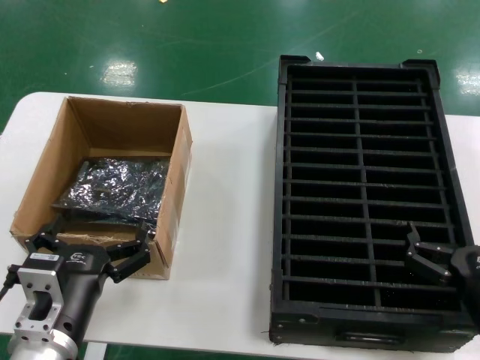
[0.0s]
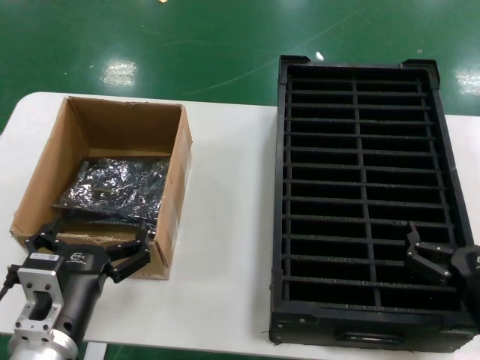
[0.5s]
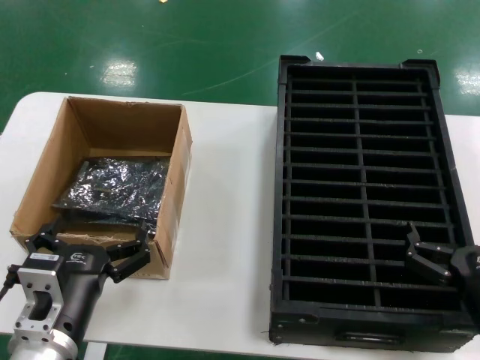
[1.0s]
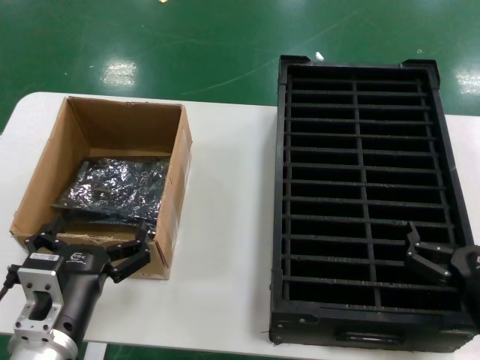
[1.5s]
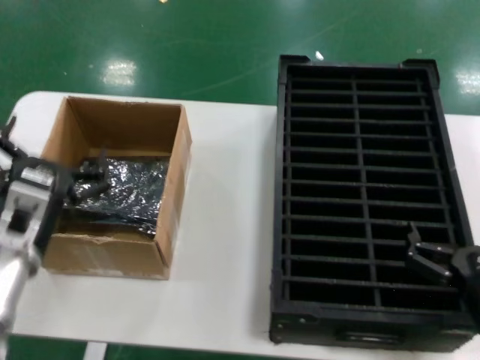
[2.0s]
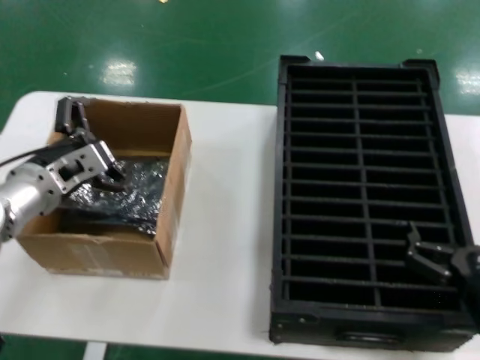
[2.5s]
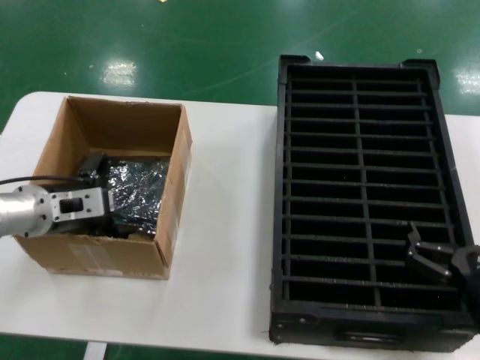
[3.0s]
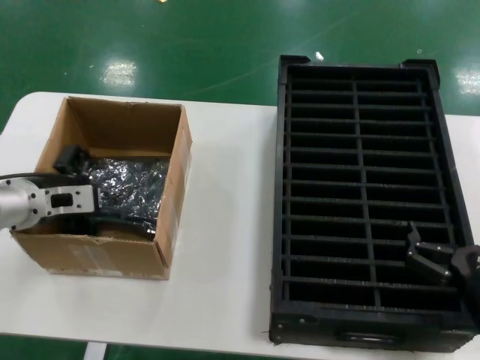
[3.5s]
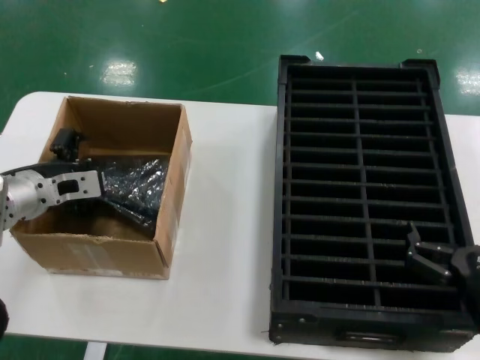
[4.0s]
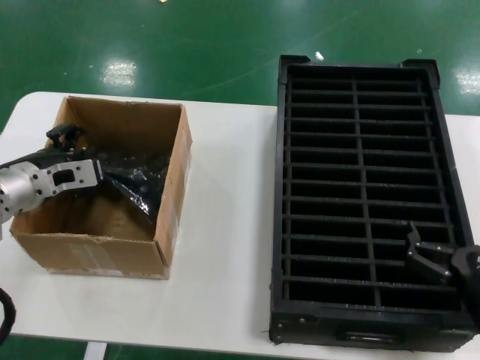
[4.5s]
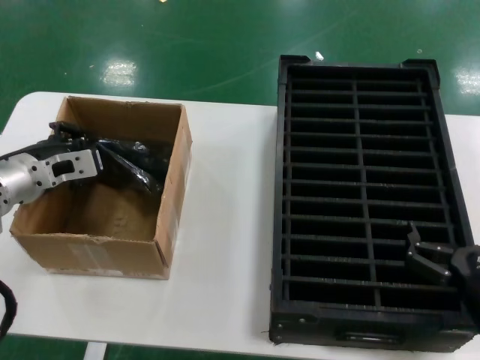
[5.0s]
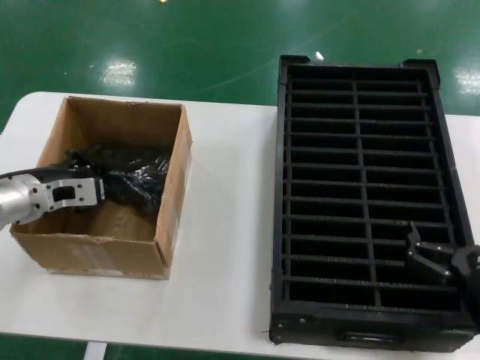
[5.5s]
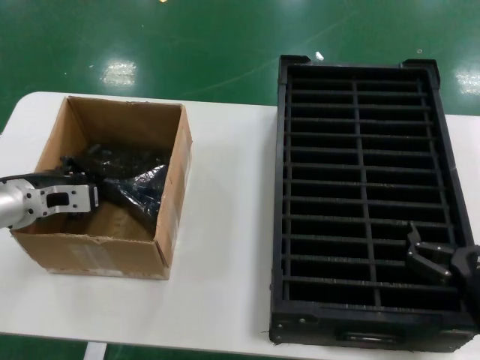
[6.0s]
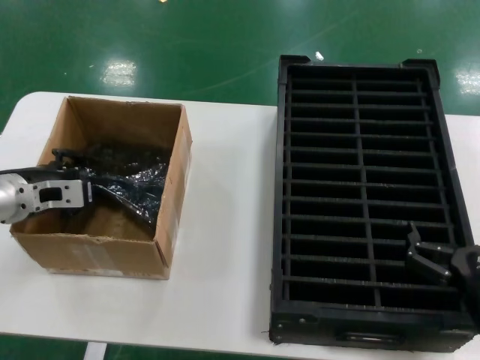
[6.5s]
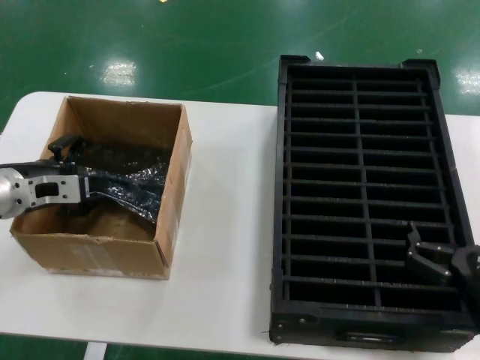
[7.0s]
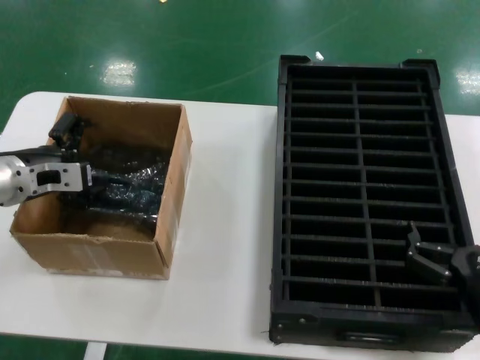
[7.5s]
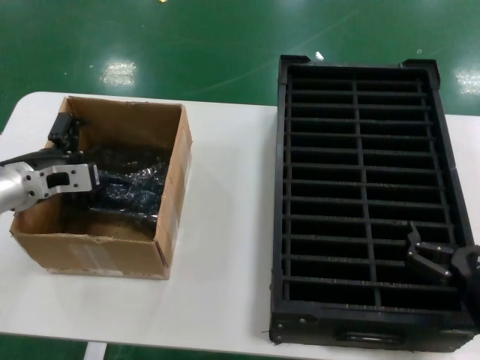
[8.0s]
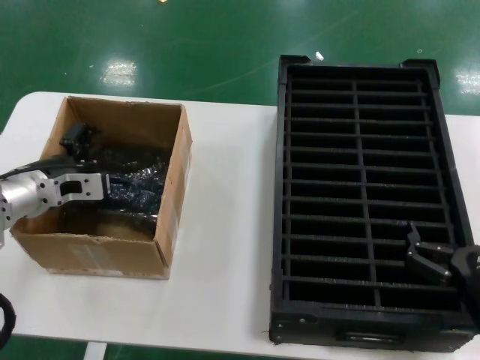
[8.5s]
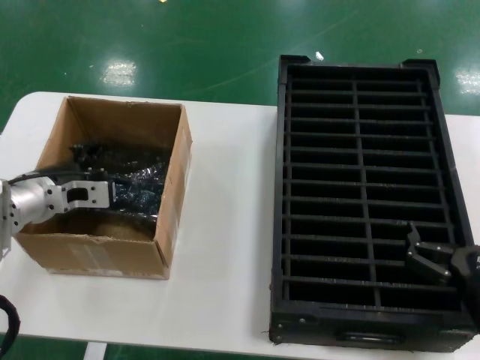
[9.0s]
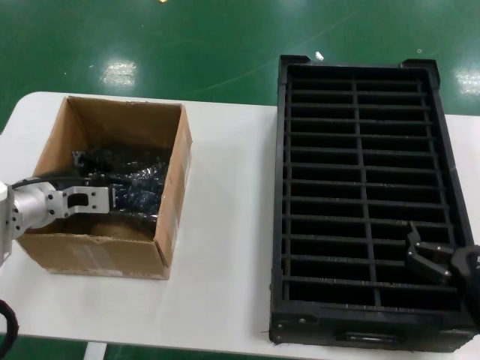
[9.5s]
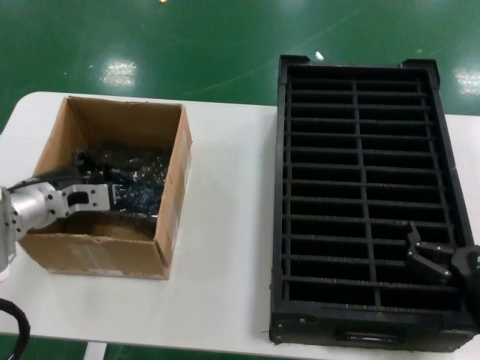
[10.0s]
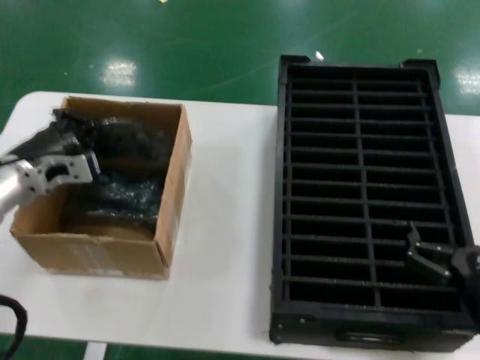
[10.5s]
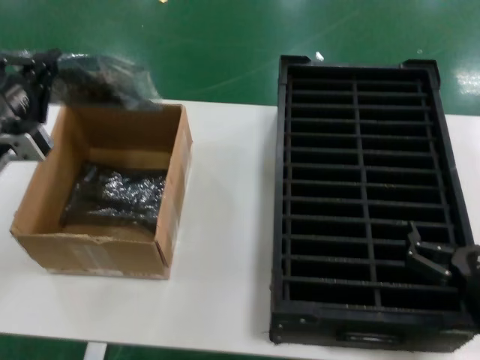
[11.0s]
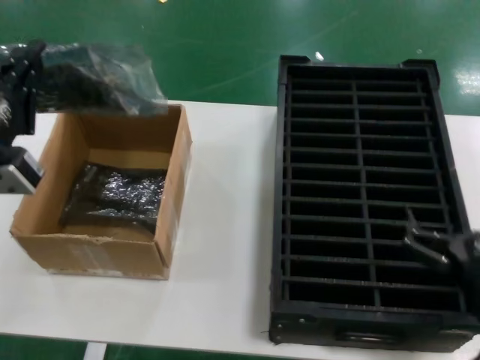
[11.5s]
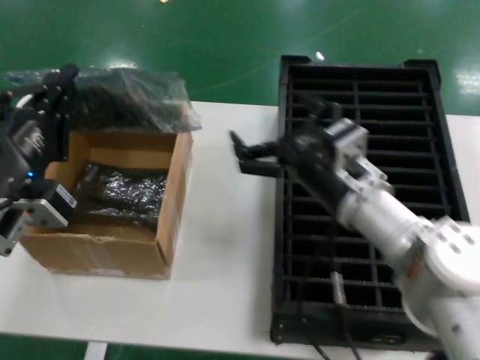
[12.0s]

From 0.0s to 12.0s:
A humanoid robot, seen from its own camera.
Task of the whole recording: take out graphics card from box remove packaging put into black container.
Step, from 0.0s to 10.0s: Grasp the bag.
Step, from 10.5s to 11.5s: Lift the bag.
From 0.0s to 2.0s: The left hand goes some 10 cm upward and forward.
From 2.0s to 4.0s: The left hand shifts roughly 20 cm forward and to the left.
From 4.0s to 10.0s: The hands stay close to where they were, moving slightly.
From 10.0s to 12.0s: The left hand is displaced backward by roughly 20 cm; the right hand moves forward, to the left and upward, about 20 cm.

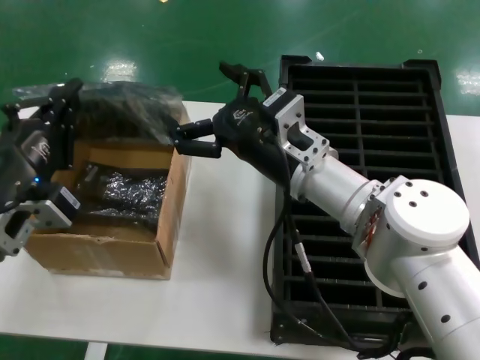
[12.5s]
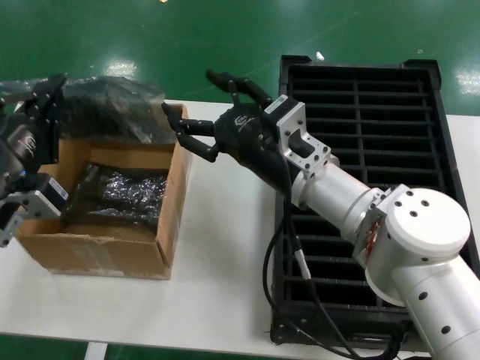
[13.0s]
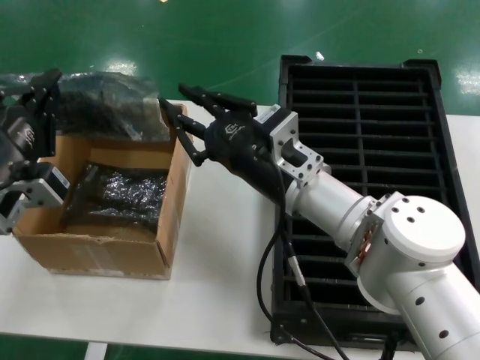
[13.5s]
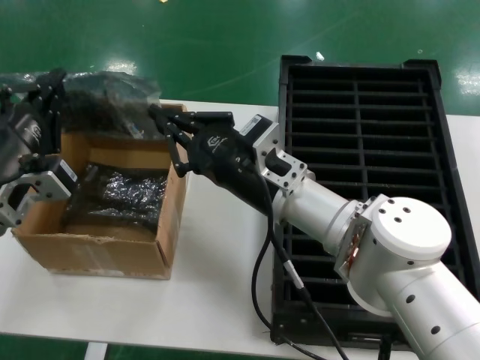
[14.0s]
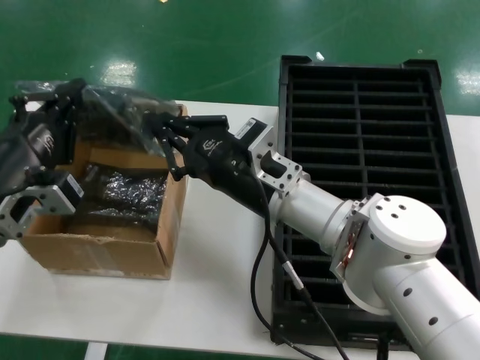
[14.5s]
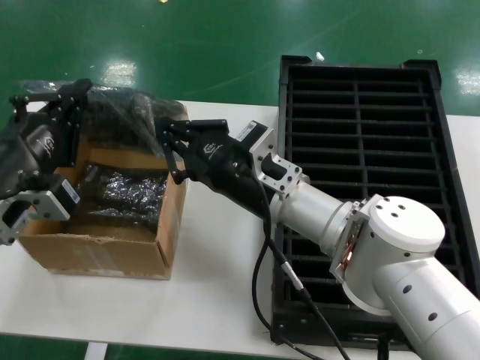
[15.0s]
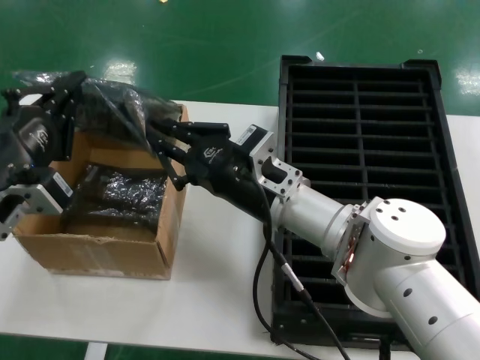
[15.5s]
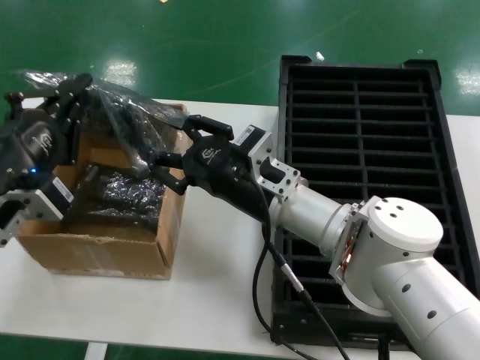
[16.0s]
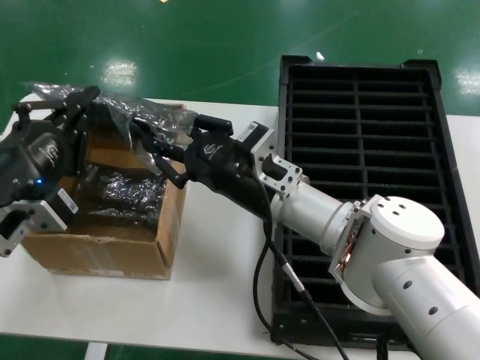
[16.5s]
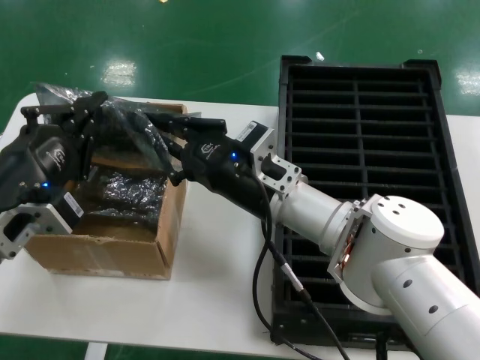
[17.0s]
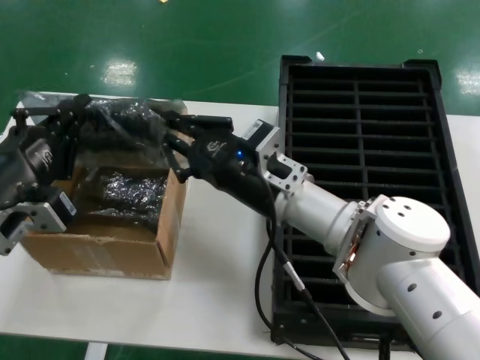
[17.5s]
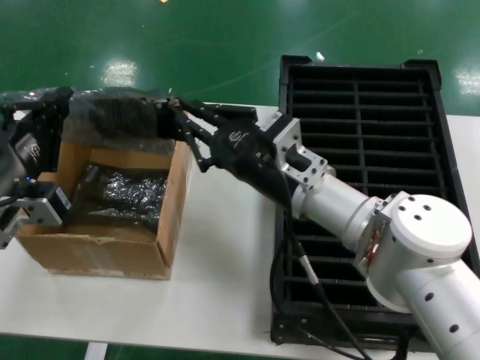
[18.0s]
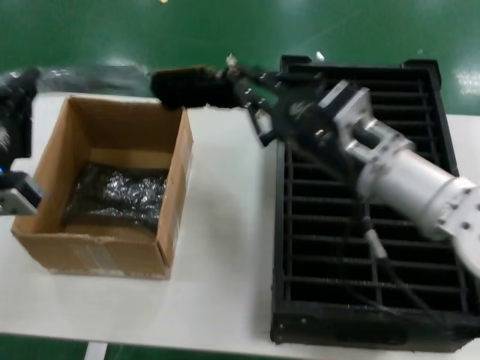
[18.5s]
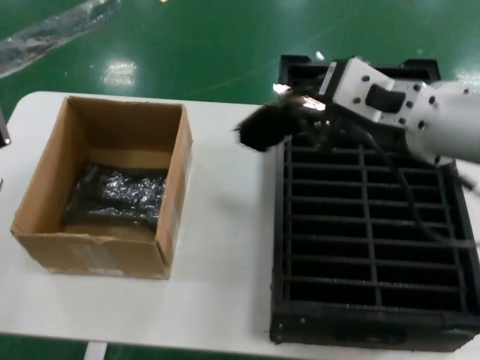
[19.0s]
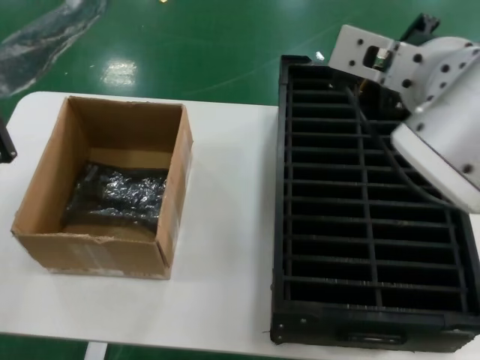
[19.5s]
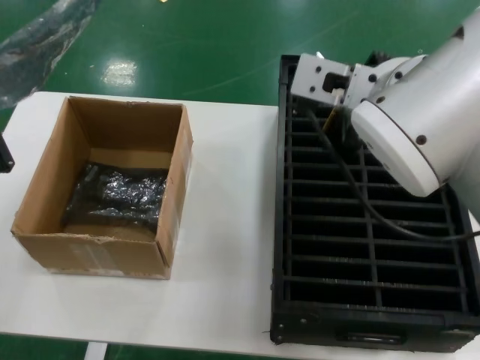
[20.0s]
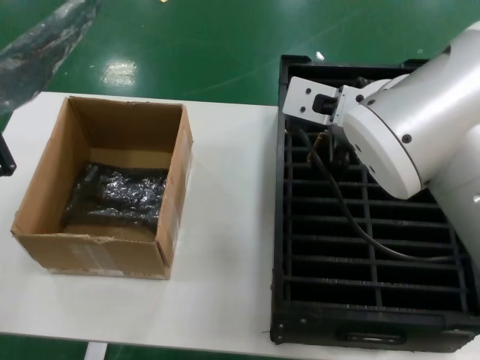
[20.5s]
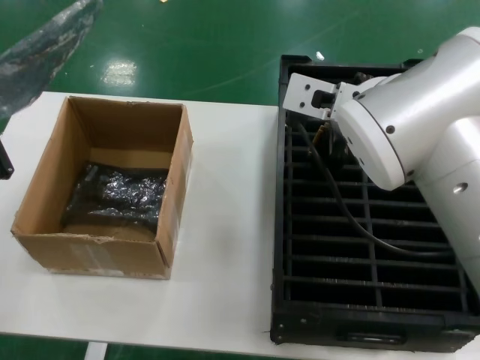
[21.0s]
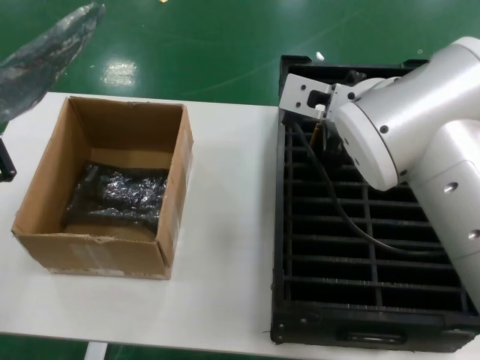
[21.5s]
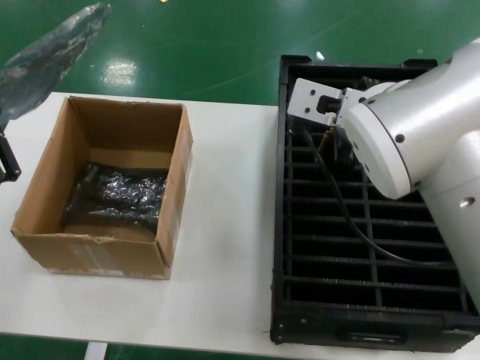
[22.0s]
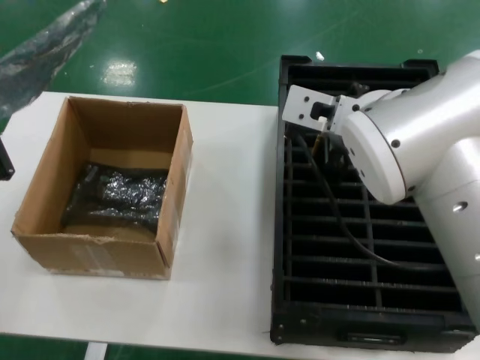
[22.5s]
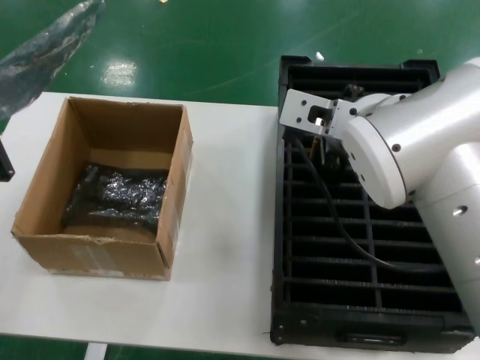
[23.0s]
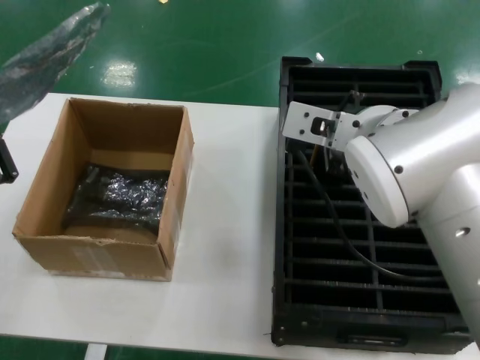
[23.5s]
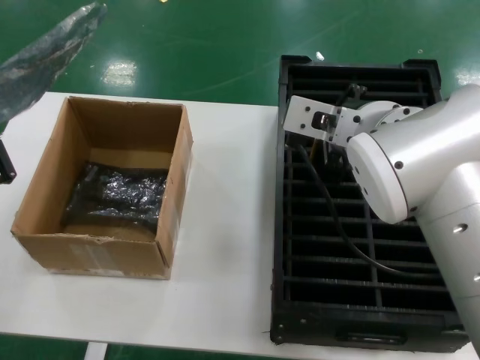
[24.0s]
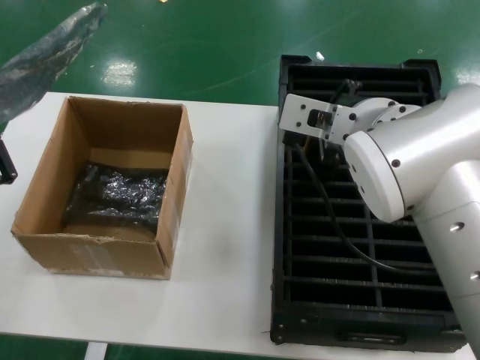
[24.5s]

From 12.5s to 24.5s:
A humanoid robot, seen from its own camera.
Task of the whole recording: take out graphics card from box remove packaging put into black container.
Step, from 12.5s to 18.5s: Take out the hard disk of the bag.
From 14.5s to 16.5s: There are only small adjustments of the hands.
From 16.5s to 18.5s: The right hand goes some 10 cm to the right and upward.
From 18.5s to 20.5s: The right hand moves upward and to the left, some 15 cm; the left hand is displaced downward by about 5 cm.
From 20.5s to 24.5s: The hands stay close to where they were, moving slightly.

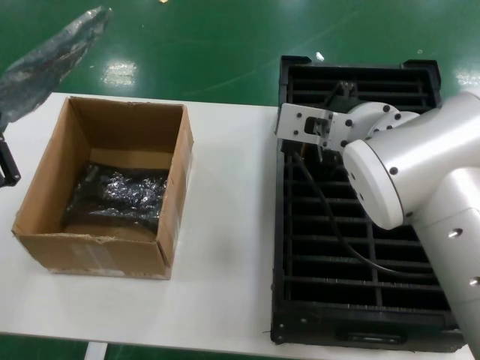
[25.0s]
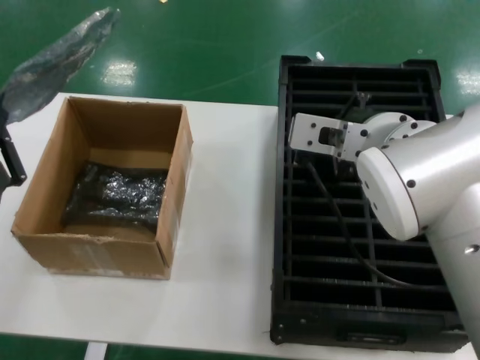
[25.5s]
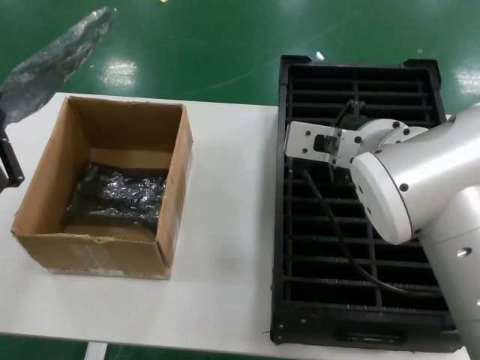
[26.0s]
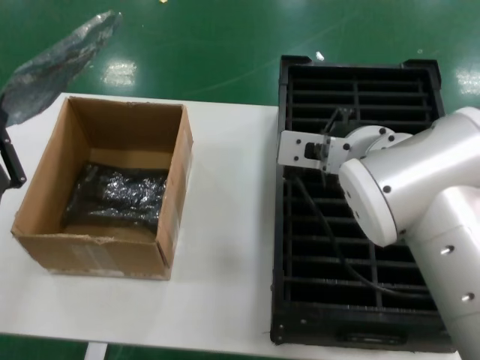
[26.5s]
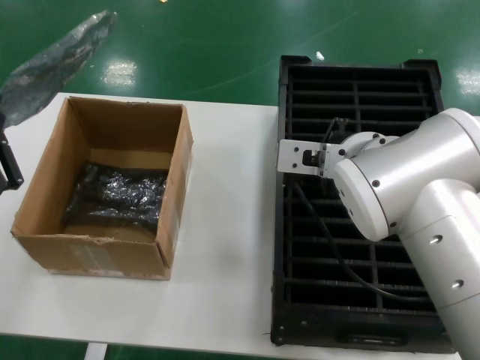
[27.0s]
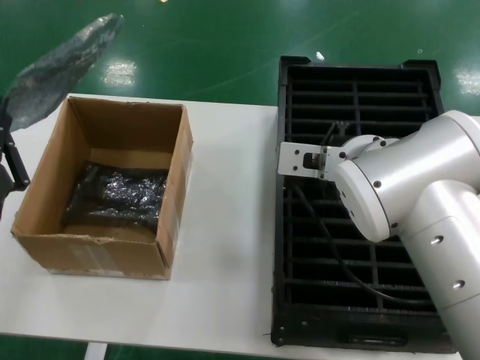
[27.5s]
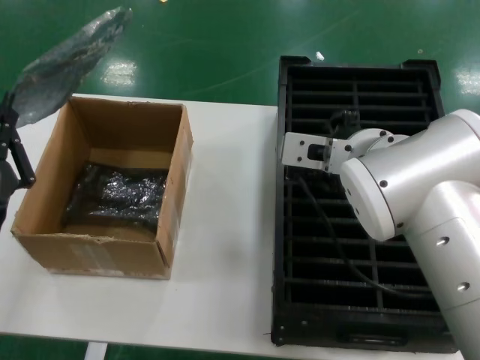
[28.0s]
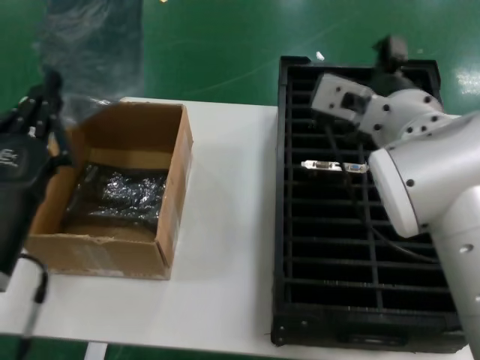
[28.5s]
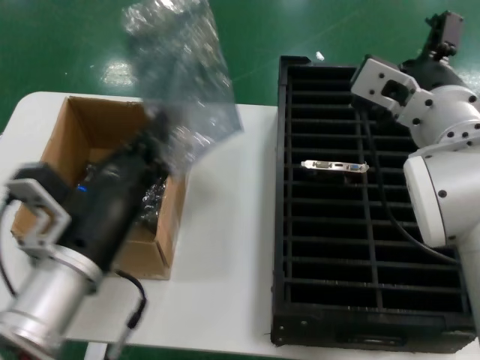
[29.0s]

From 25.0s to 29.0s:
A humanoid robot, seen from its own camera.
Task of the whole recording: take out graphics card from box remove packaging put into black container.
Step, from 25.0s to 28.5s: Place the hard disk in the hard disk enclosure.
From 25.0s to 27.0s: The hands stay close to where they were, moving slightly.
From 27.0s to 29.0s: The left hand goes roughly 10 cm to the right. Meanwhile the right hand travels to the right by about 5 cm.
